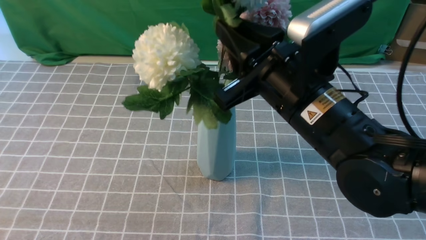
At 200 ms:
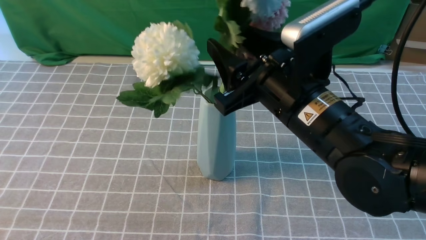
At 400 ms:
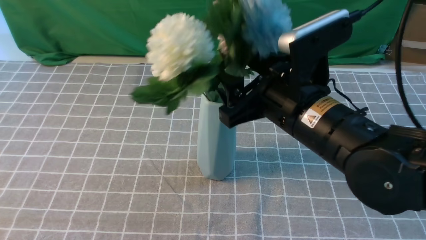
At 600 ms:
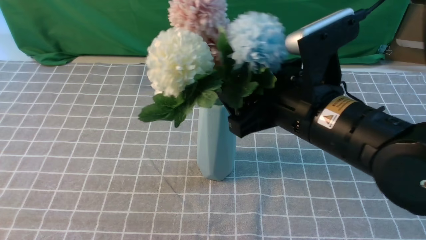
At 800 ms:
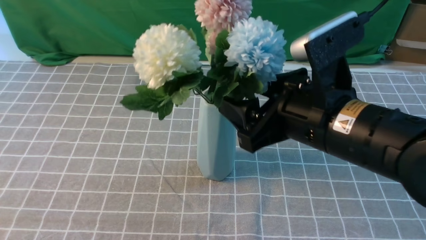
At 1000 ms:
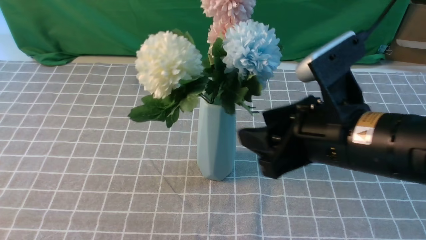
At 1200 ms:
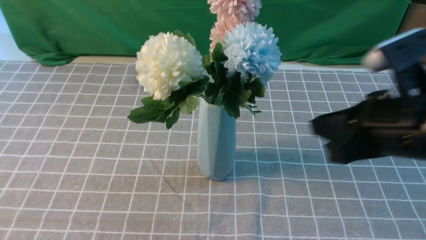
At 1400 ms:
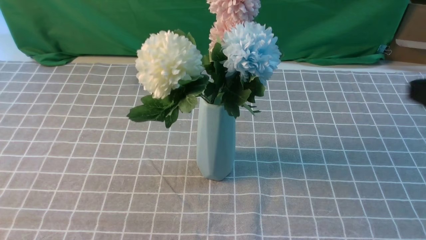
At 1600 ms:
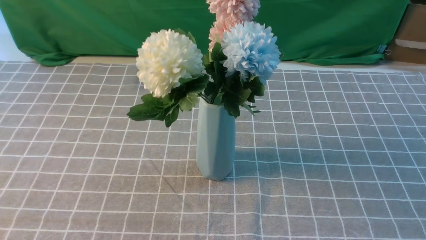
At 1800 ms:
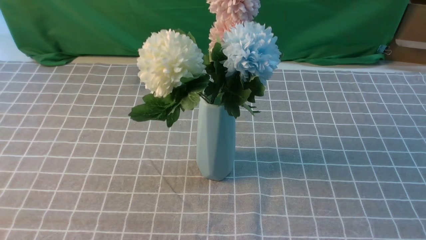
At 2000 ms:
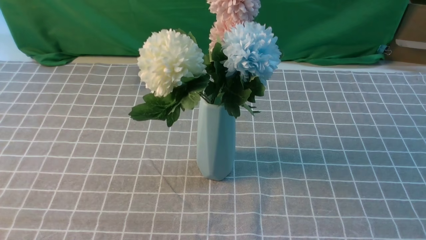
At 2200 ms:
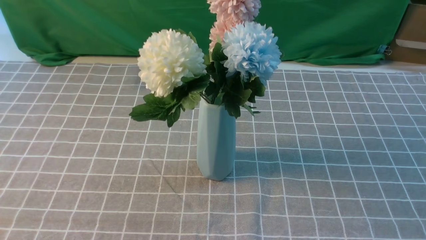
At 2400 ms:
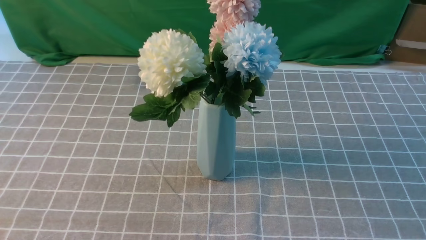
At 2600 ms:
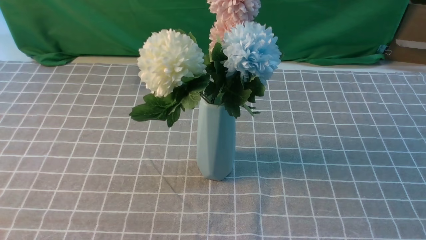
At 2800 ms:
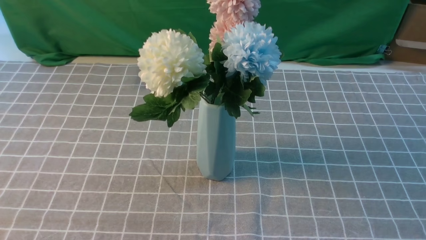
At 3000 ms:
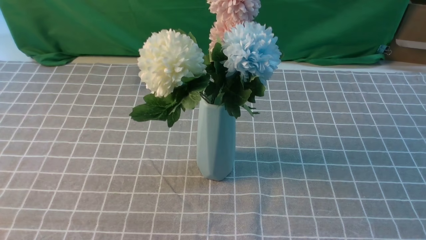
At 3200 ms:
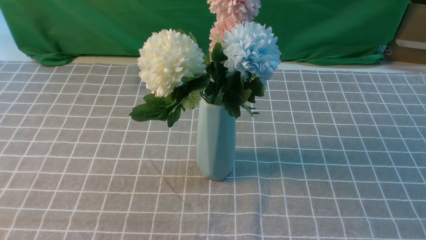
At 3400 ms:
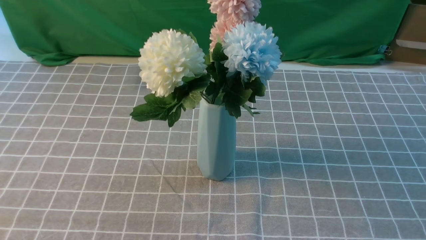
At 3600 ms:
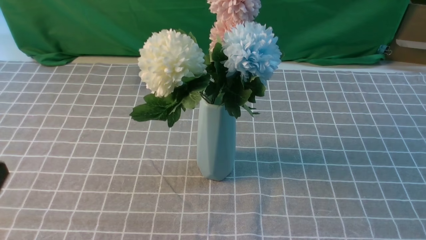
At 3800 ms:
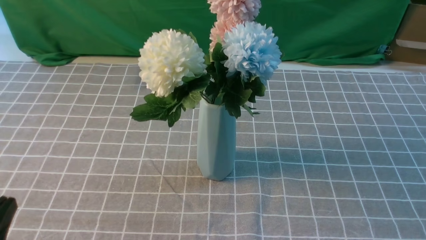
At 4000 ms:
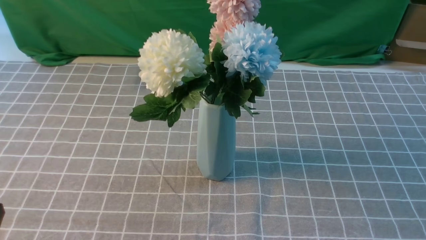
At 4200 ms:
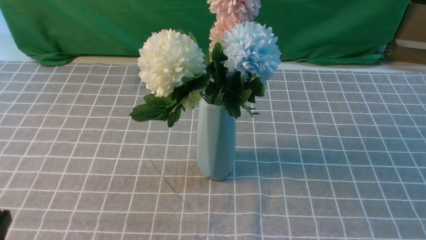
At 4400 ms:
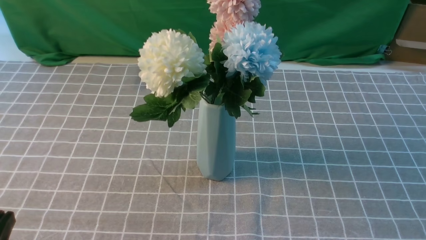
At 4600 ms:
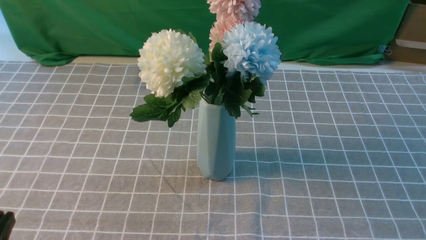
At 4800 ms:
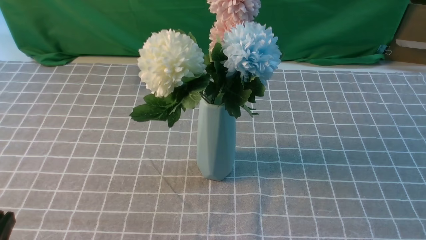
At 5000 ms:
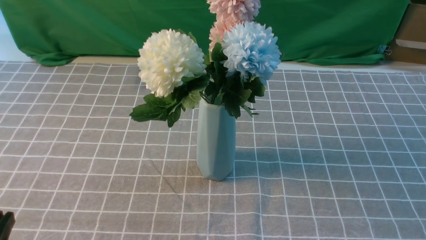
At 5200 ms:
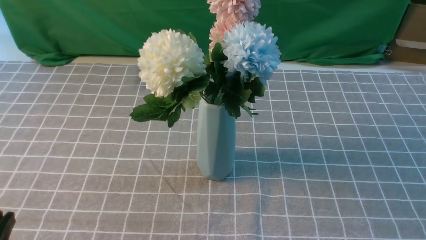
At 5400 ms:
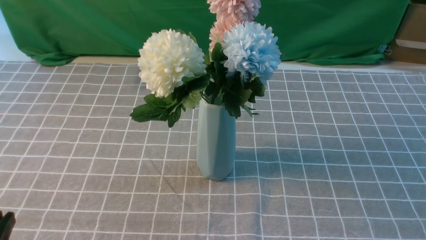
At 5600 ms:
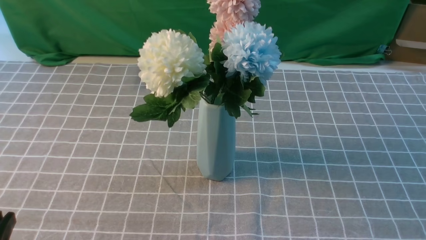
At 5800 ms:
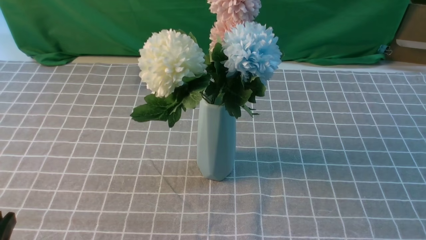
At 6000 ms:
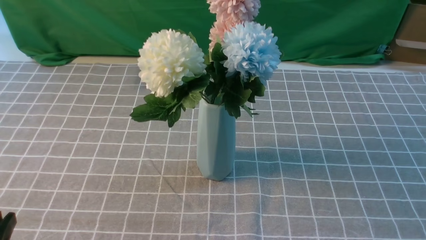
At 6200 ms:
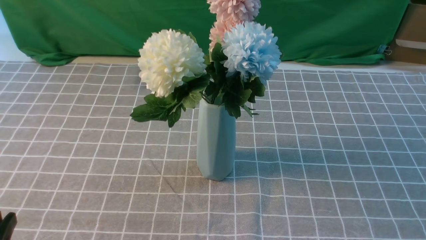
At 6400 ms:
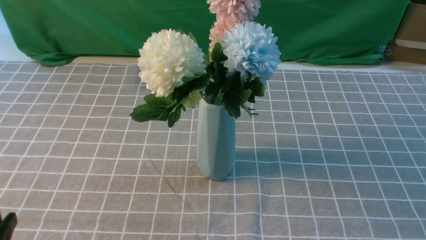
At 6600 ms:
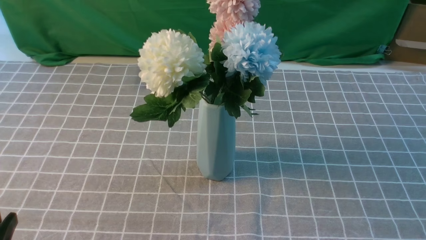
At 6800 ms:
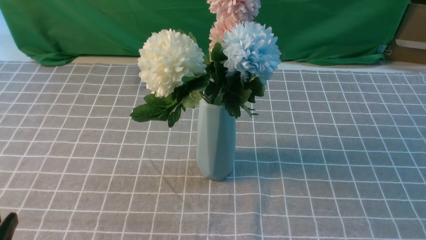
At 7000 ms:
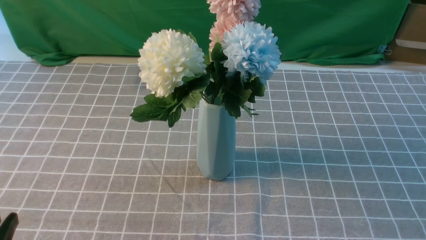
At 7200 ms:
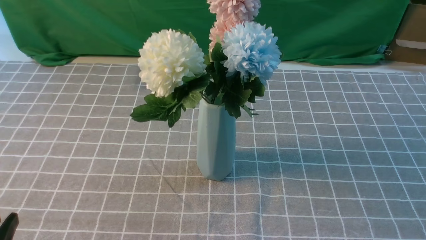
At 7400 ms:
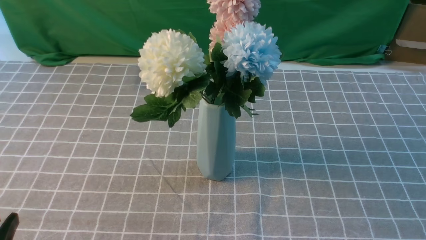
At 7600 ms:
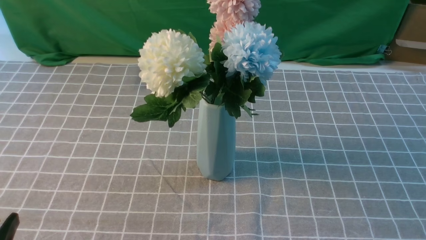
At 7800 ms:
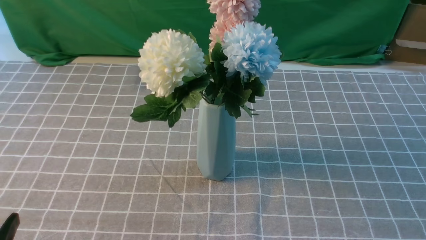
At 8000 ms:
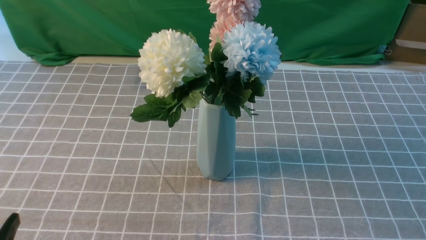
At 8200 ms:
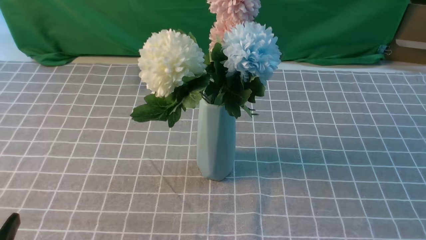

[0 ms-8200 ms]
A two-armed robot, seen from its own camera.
Task of the whole recording: insert the flowers into the vase on the table with the grey tablecloth.
0 ms to 1600 ms: The right gripper shifts some 25 cm to the right and backward, and opens, then closes again.
1600 ms to 3200 ms: The right gripper shifts about 10 cm downward and backward.
6600 ms to 8200 ms: Neither gripper changes place.
